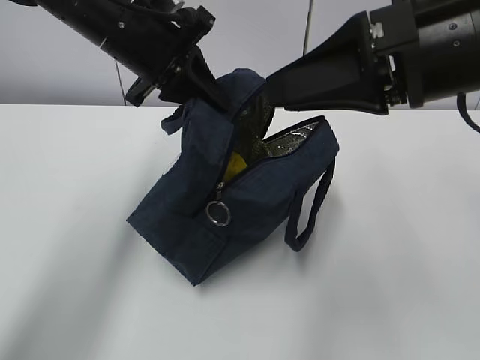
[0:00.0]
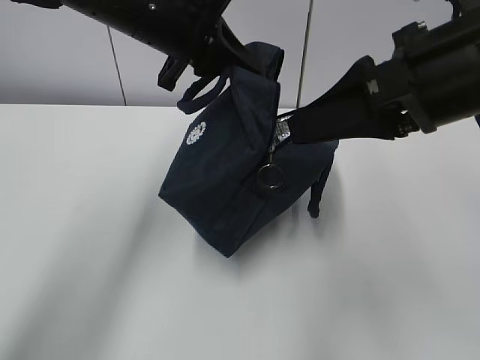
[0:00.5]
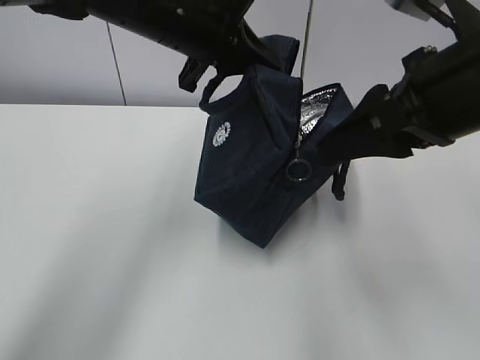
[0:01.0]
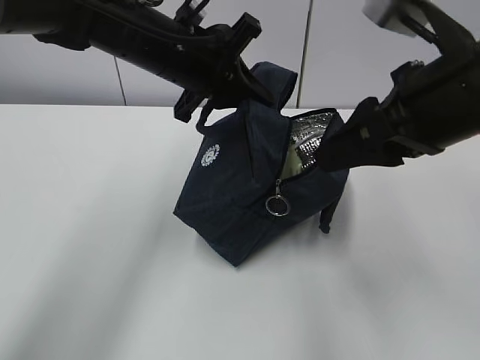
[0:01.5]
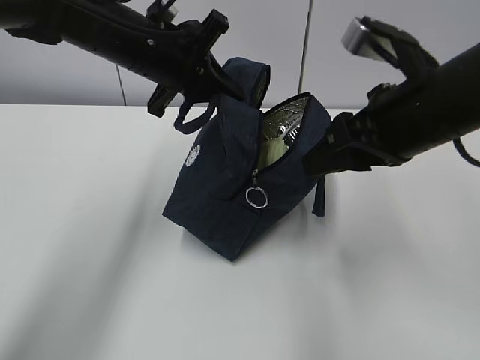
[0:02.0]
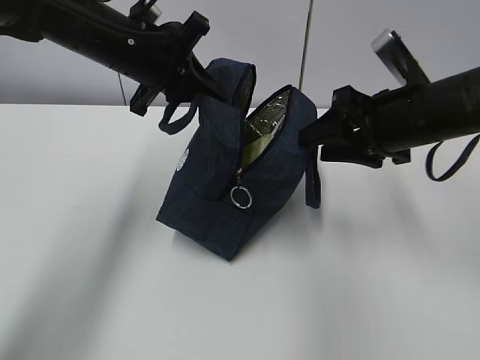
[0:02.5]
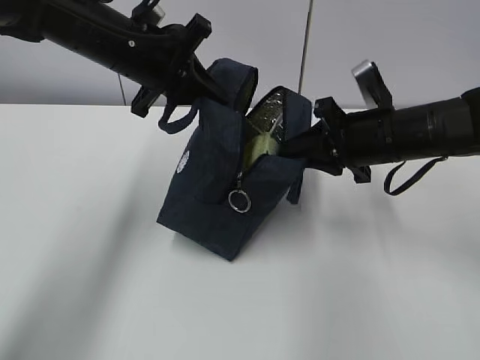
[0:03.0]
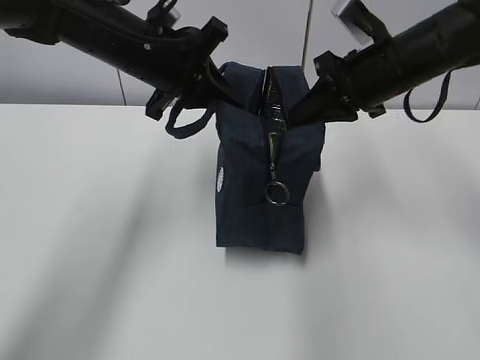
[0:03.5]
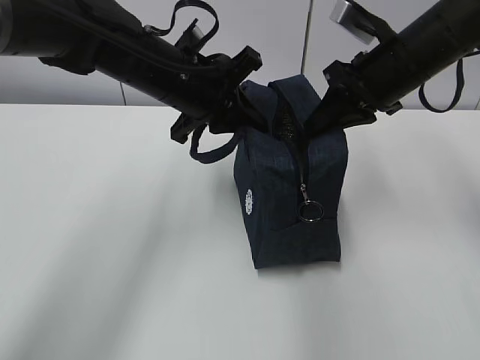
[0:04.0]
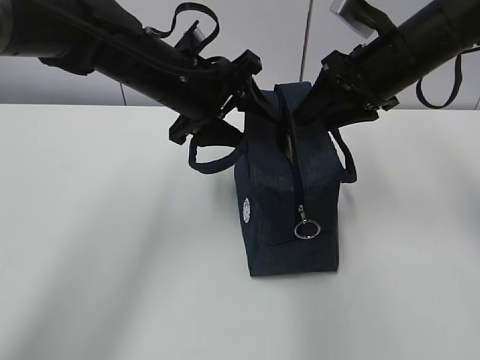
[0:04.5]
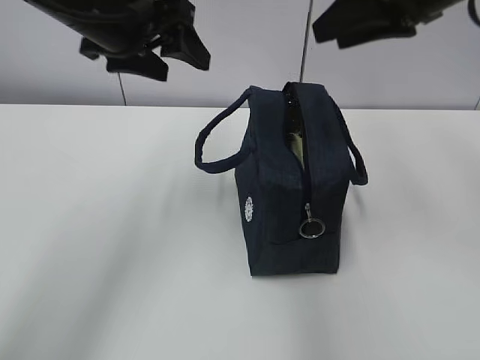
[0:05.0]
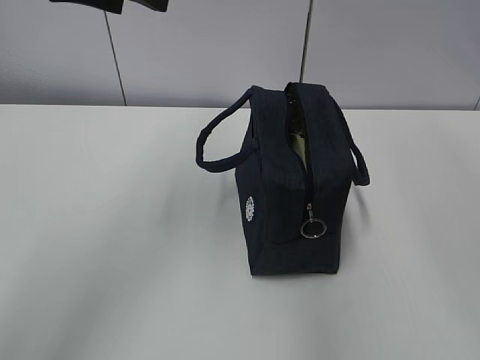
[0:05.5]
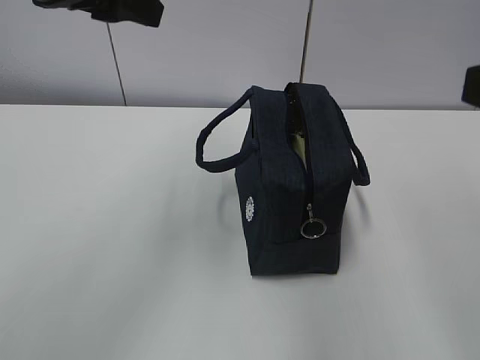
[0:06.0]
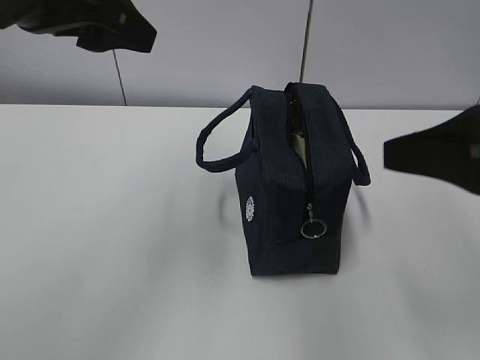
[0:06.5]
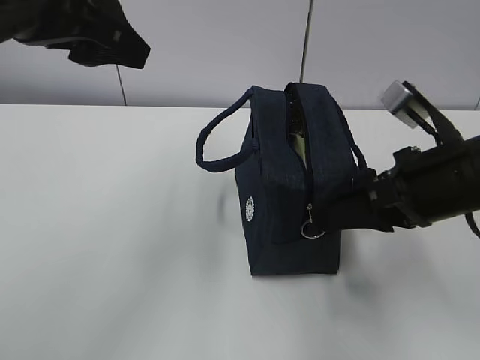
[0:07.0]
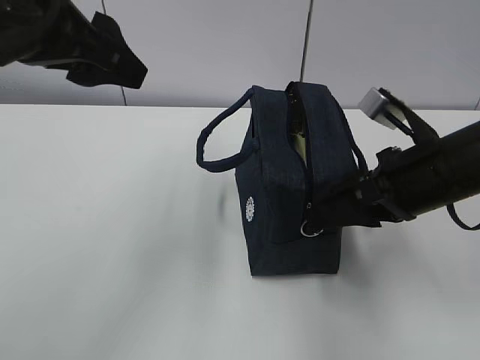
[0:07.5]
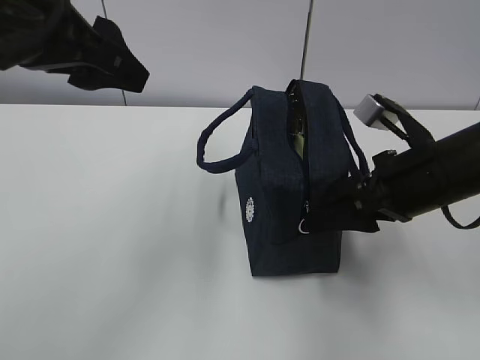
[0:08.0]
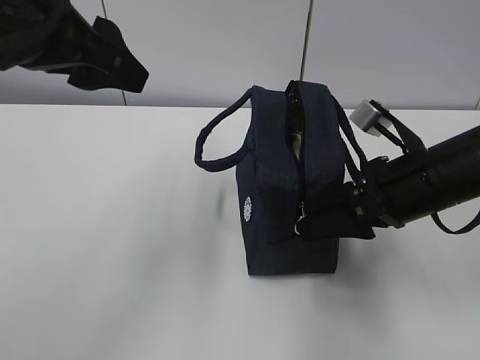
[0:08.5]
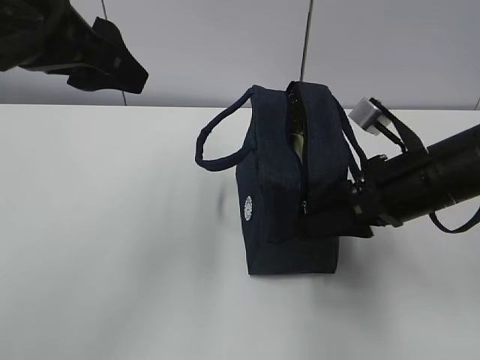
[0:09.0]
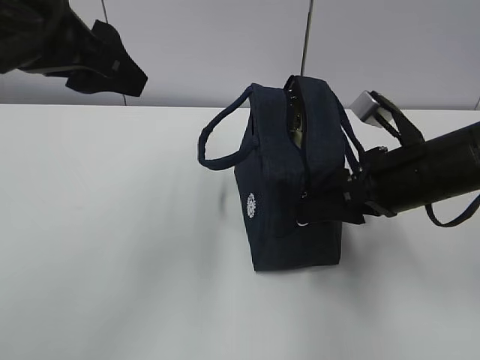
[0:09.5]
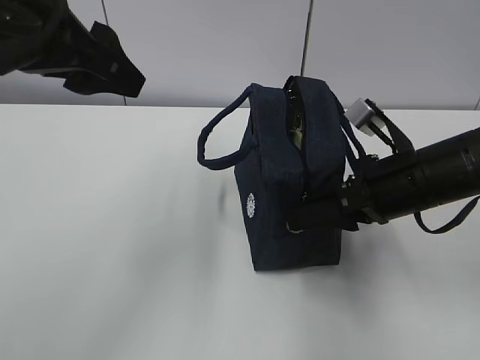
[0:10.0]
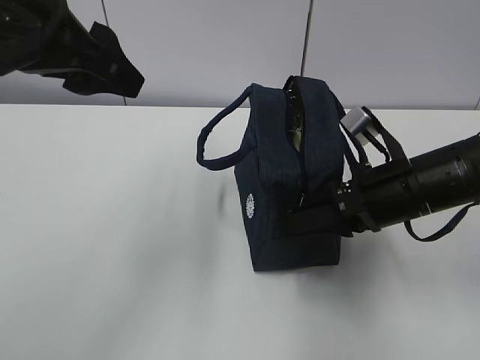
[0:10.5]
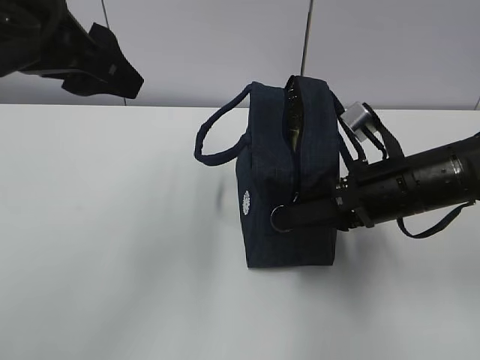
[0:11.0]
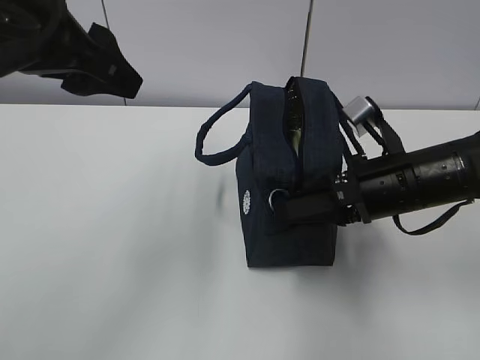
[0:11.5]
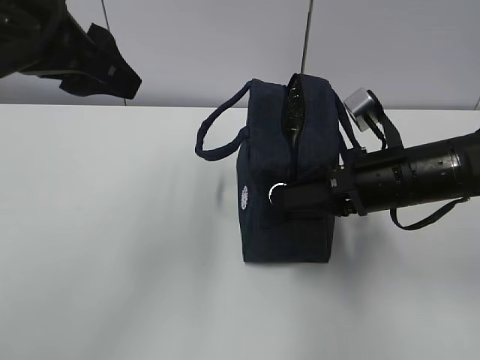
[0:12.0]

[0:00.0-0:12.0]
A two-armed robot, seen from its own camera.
Step, 0:00.0 to 0:08.5: Grab the lunch bag with your left hand.
0:00.0 to 0:02.0: The right gripper travels downward and forward by about 10 cm.
0:02.0 to 0:04.0: The right gripper is displaced forward by roughly 10 cm, and closes up, while the left gripper ends up some 5 cm from where it was.
0:04.0 to 0:06.0: The right gripper goes some 25 cm backward, and opens. Meanwhile the left gripper travels upward, to the left and backward by about 20 cm, and opens its fingers.
0:06.0 to 0:08.0: The right gripper is displaced downward and forward by approximately 20 cm.
0:08.0 to 0:10.0: The grippers stay close to where they were, moving slightly.
0:10.0 to 0:12.0: The grippers make only small movements.

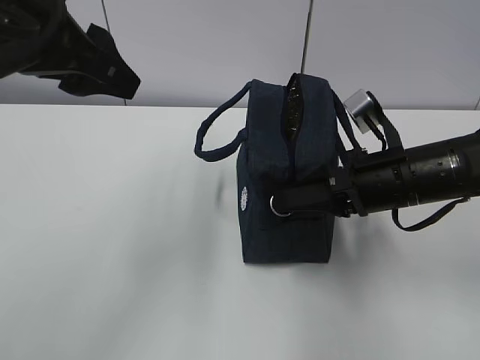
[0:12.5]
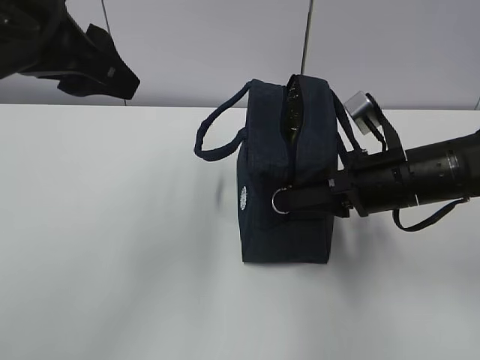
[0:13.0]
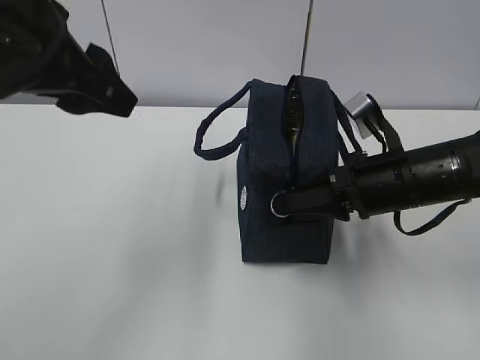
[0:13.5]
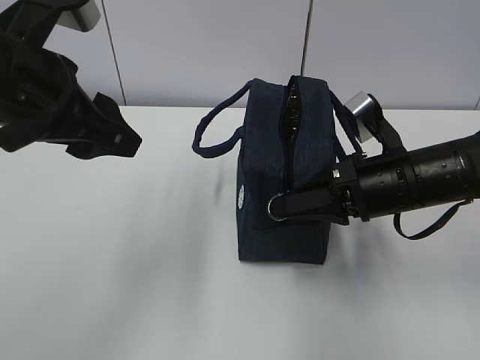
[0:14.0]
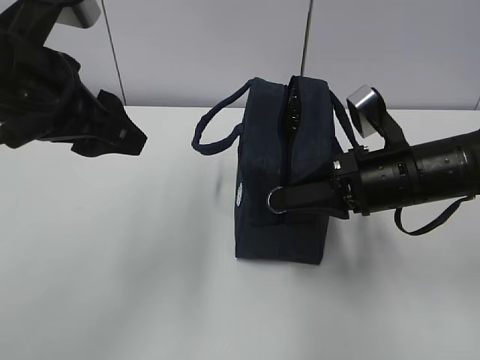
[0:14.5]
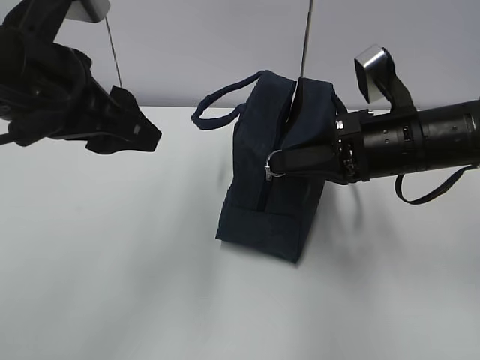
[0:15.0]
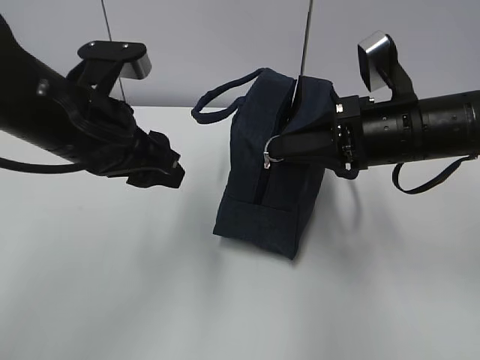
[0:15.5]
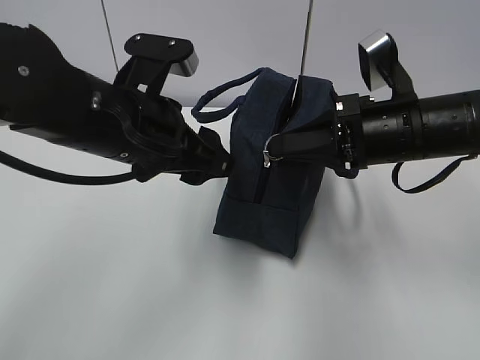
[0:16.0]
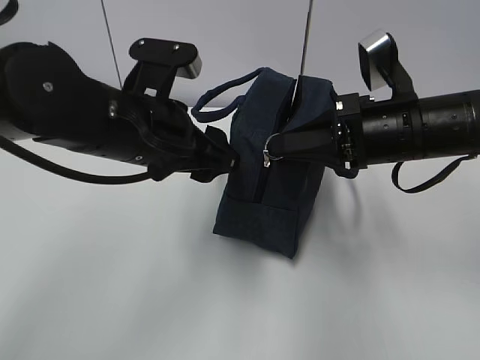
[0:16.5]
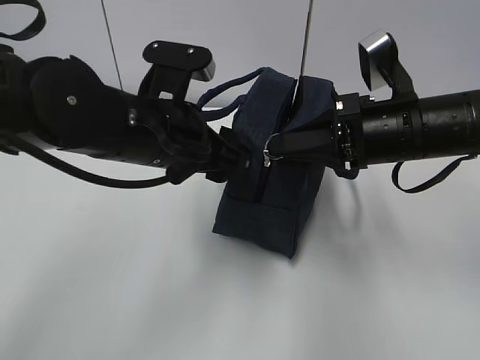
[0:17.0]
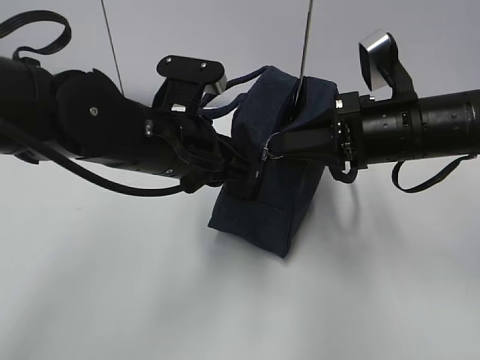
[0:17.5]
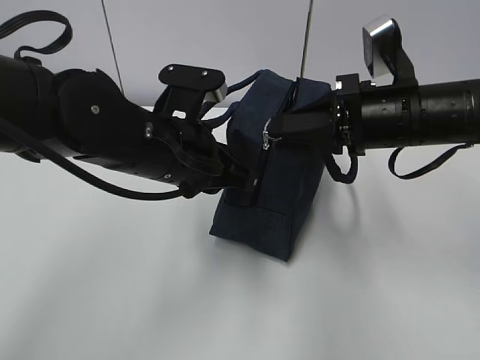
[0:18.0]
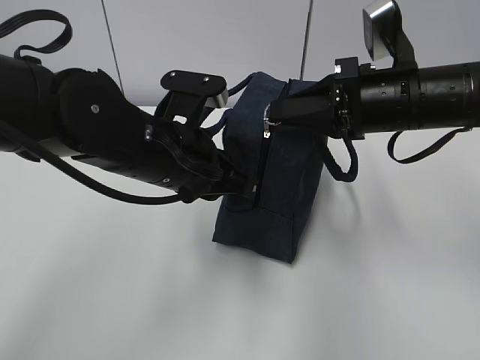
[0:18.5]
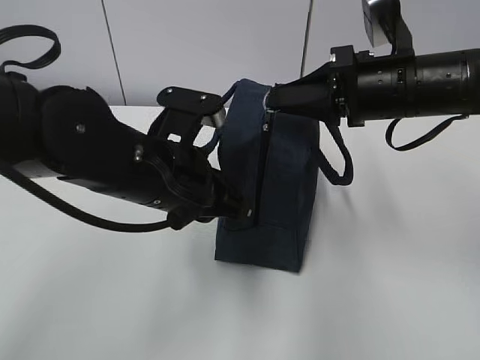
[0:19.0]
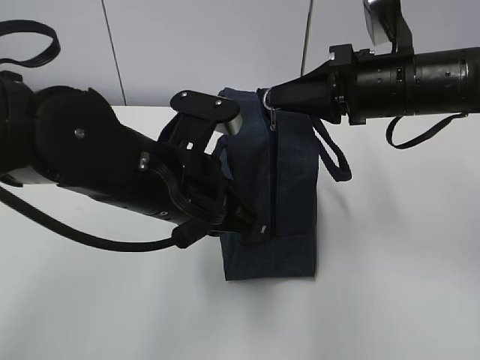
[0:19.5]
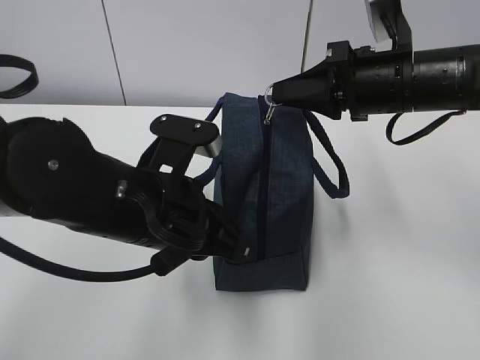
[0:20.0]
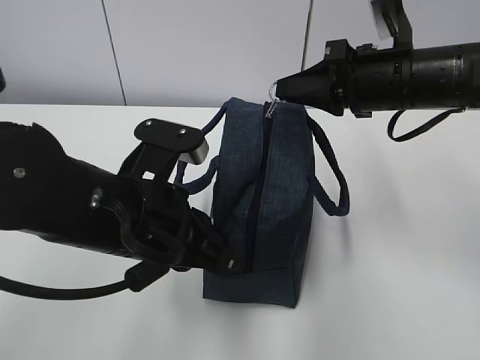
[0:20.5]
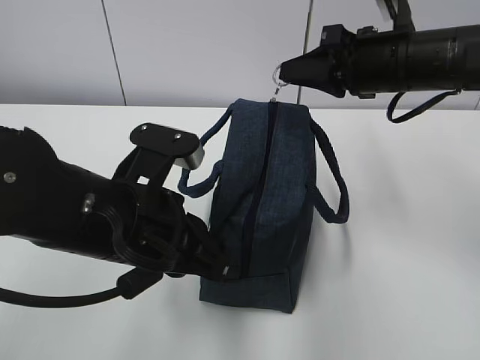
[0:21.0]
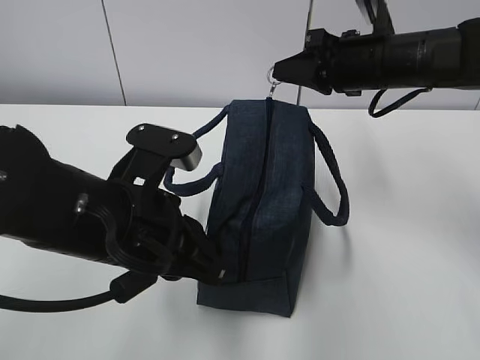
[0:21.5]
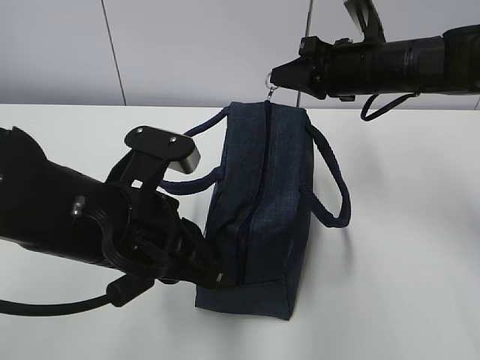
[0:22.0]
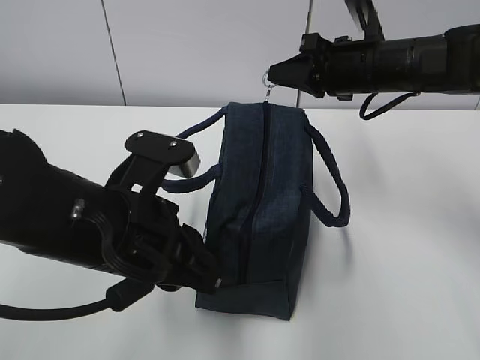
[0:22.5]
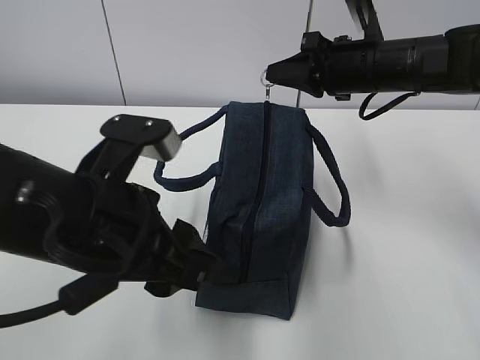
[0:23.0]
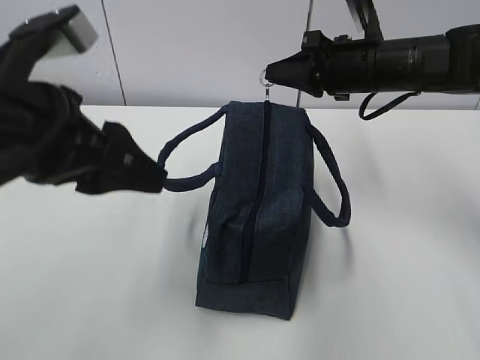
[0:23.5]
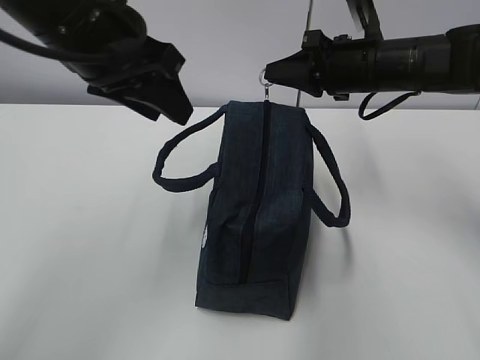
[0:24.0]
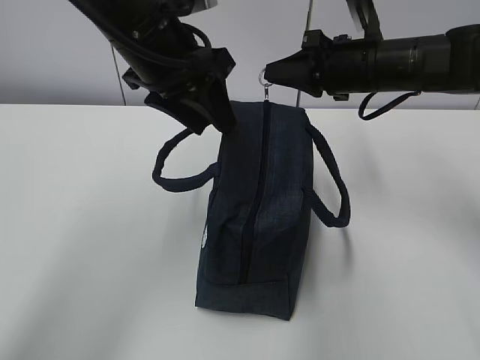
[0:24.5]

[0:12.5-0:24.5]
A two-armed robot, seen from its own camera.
Step, 0:12.5 to 0:20.0: Pull the zipper with your right hand.
Step, 0:20.5 to 0:22.0: Grab the lunch bag with your left hand.
0:12.5 to 0:14.5: The right gripper closes up.
0:14.5 to 0:16.5: The left gripper travels to the right and downward by about 10 cm.
0:16.5 to 0:18.5: The left gripper closes up.
0:18.5 to 0:20.5: The left gripper heads backward, covering roughly 5 cm.
0:20.5 to 0:22.5: The right gripper shifts about 5 cm forward.
0:22.5 to 0:24.5: The left gripper is displaced forward and upward by roughly 20 cm, and opens up.

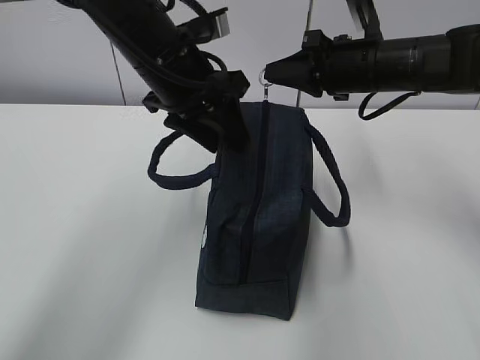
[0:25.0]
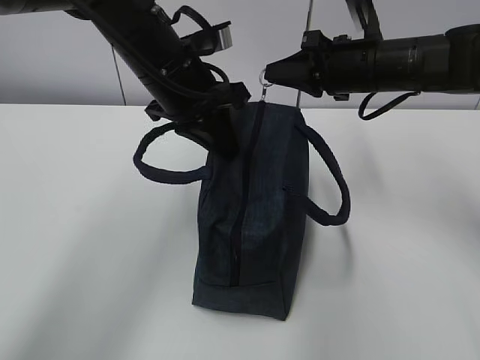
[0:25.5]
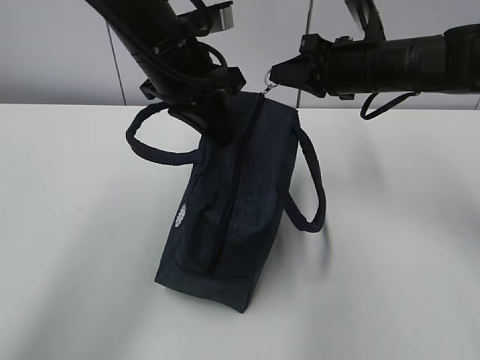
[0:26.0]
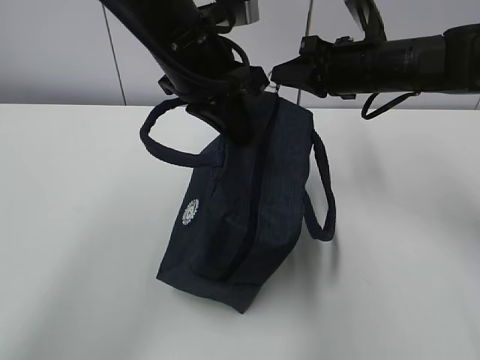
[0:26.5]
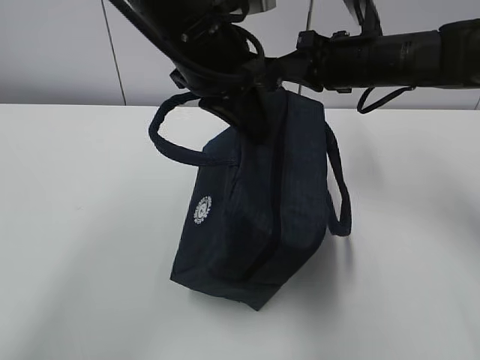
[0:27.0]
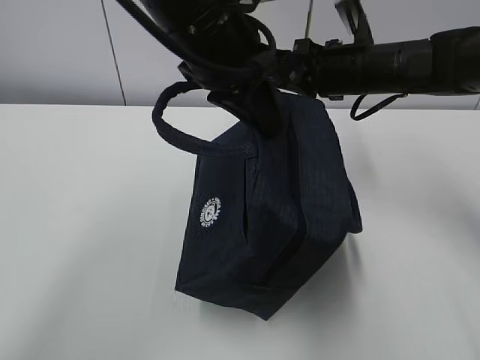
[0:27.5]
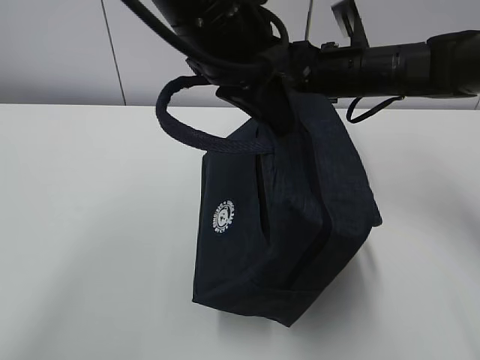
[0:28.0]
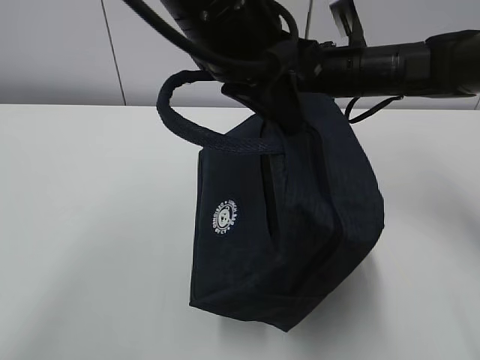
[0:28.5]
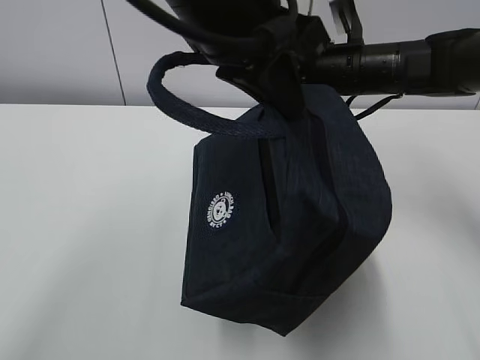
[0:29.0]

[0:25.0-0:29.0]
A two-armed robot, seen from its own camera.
0:25.0 to 0:27.0: The left gripper ends up some 5 cm from where it was, and closes its fingers.
0:27.0 to 0:29.0: The left gripper travels backward and upward by roughly 10 cm.
